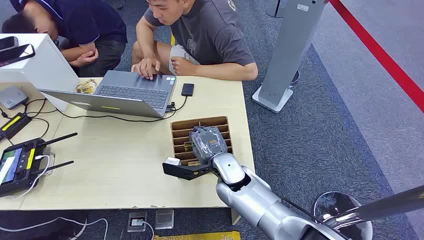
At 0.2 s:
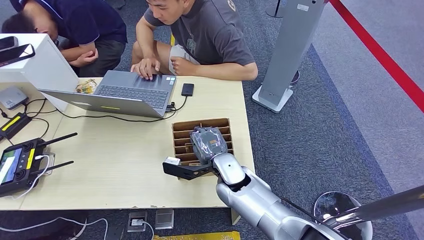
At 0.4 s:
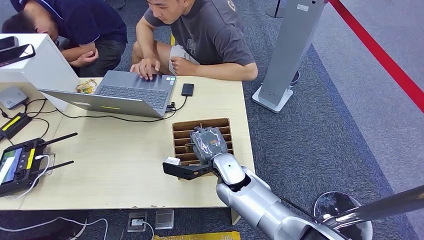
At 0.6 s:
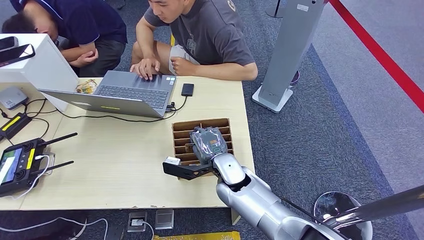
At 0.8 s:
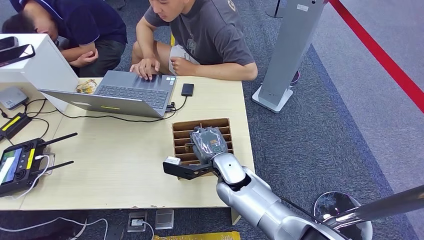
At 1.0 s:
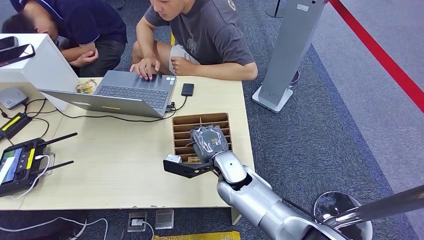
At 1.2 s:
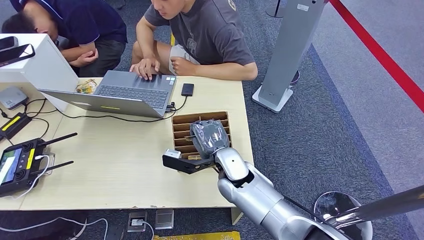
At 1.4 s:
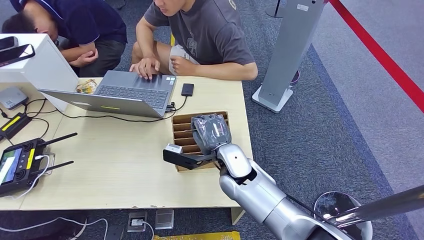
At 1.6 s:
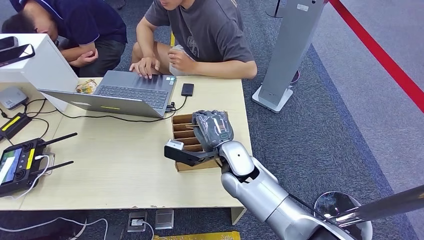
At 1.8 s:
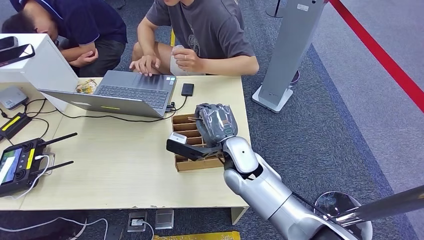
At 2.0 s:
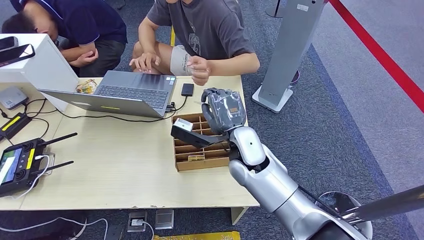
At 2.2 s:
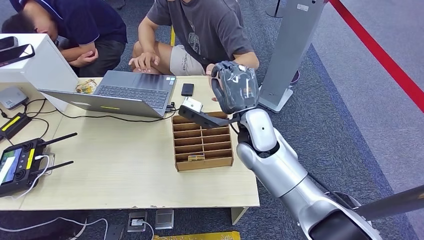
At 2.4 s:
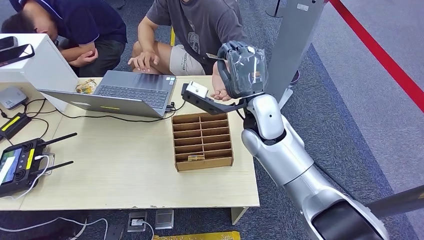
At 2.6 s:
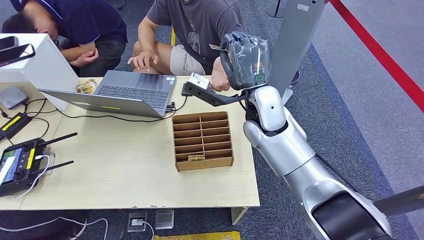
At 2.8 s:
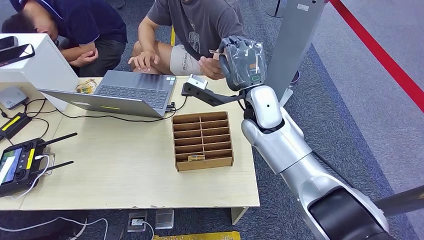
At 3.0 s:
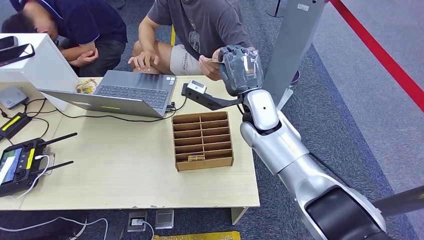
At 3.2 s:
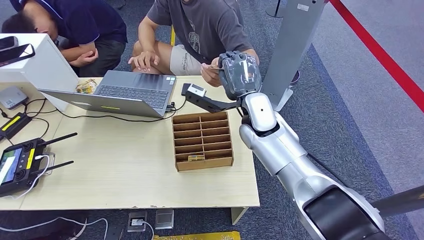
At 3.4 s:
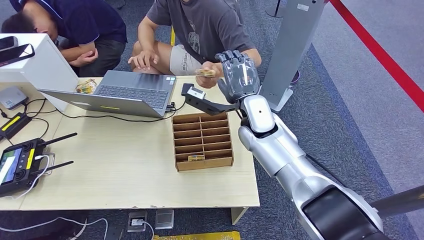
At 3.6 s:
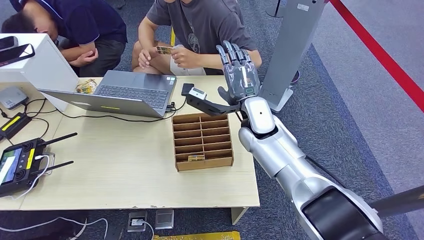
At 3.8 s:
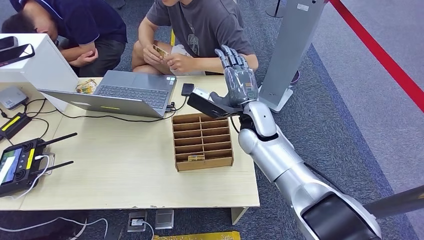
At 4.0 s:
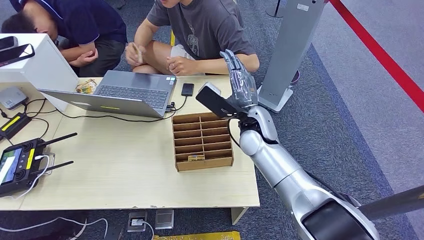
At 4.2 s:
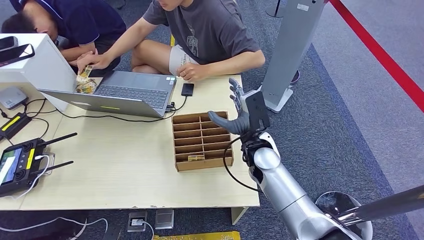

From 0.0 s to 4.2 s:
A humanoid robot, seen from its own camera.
Step, from 0.0 s to 1.6 s: Pick up the room card from the card holder.
Step, from 1.8 s to 4.2 s: Hand the room card to the target.
From 1.4 s to 2.8 s: The right hand moves upward, forward and to the right, some 15 cm.
From 2.8 s to 4.2 s: The right hand goes approximately 10 cm downward.

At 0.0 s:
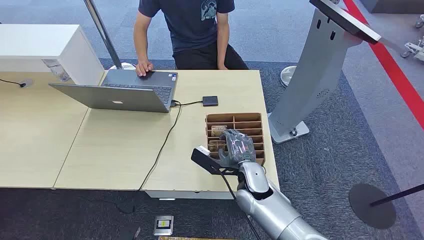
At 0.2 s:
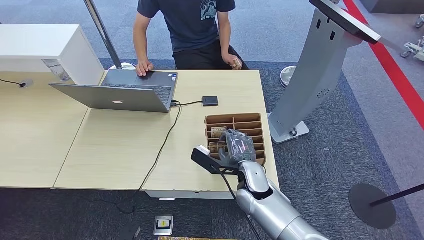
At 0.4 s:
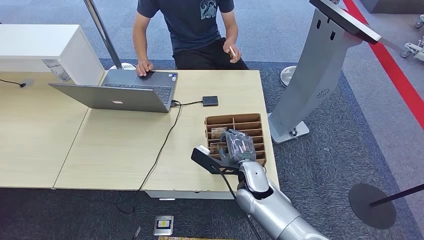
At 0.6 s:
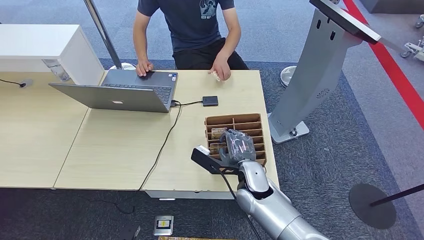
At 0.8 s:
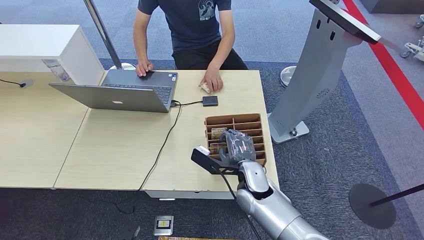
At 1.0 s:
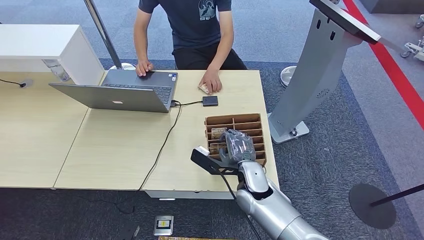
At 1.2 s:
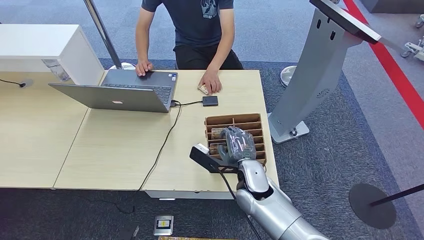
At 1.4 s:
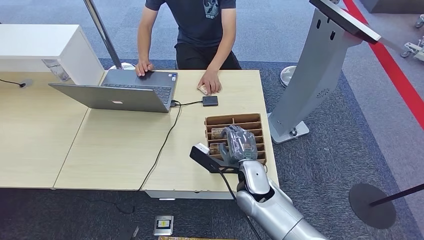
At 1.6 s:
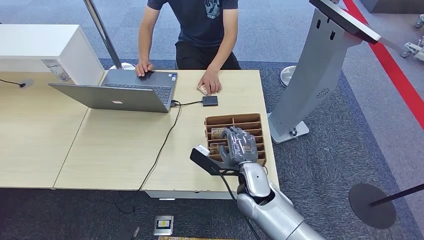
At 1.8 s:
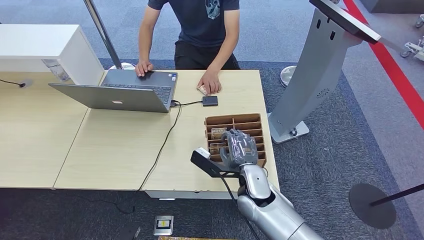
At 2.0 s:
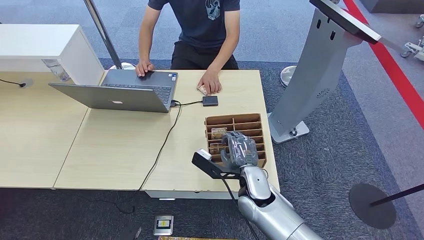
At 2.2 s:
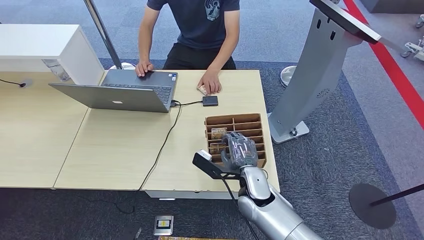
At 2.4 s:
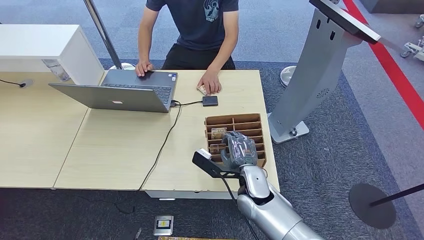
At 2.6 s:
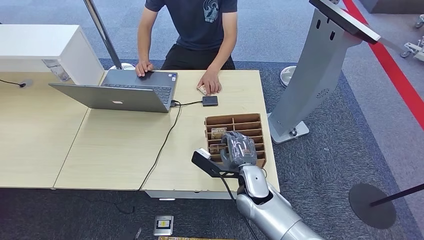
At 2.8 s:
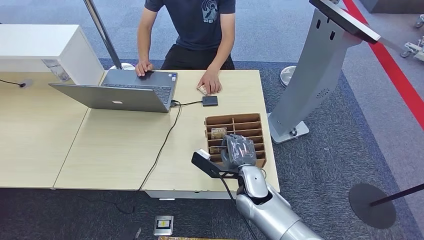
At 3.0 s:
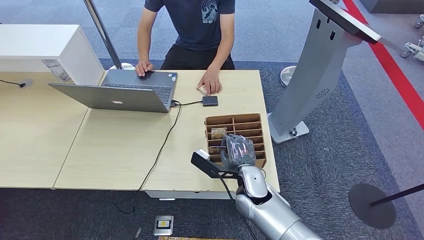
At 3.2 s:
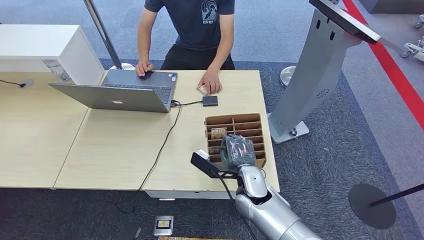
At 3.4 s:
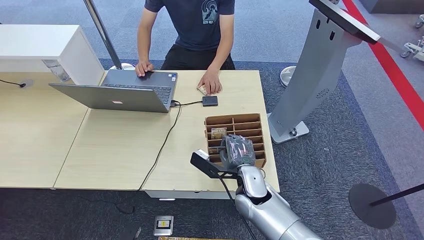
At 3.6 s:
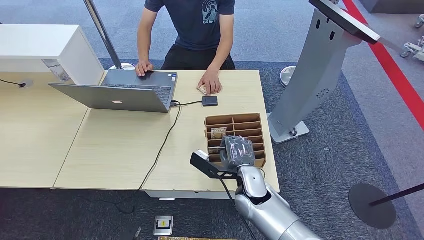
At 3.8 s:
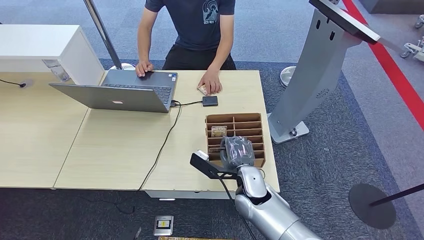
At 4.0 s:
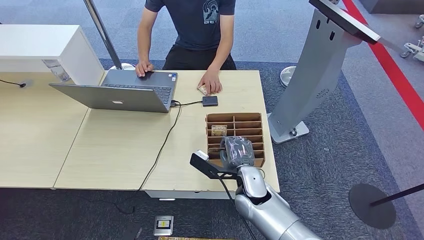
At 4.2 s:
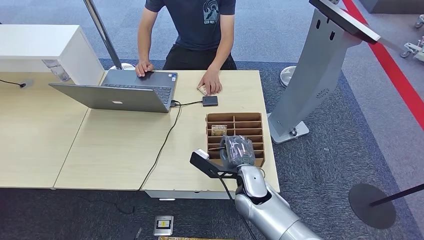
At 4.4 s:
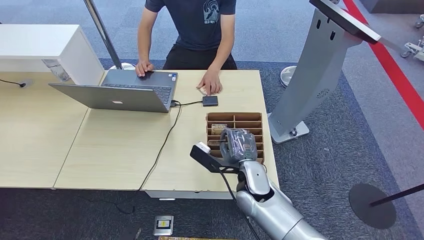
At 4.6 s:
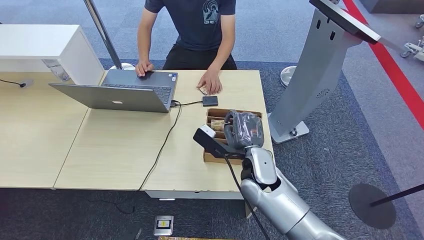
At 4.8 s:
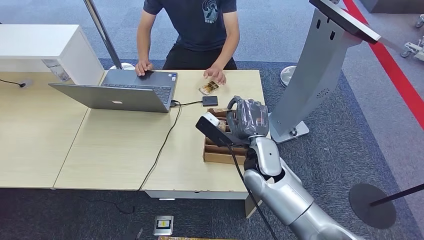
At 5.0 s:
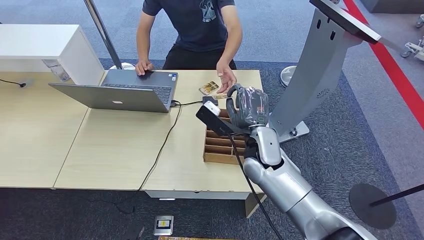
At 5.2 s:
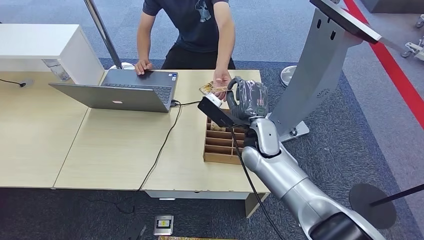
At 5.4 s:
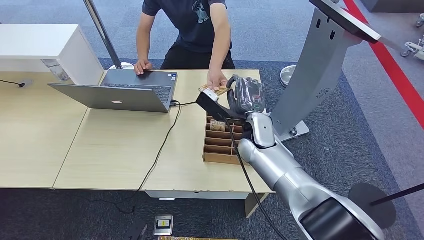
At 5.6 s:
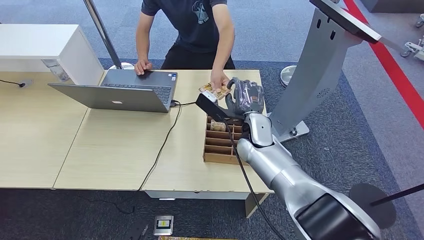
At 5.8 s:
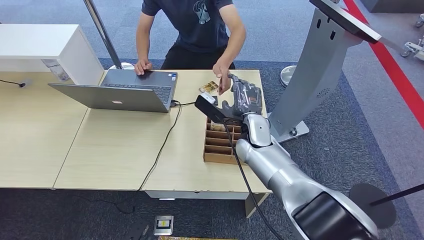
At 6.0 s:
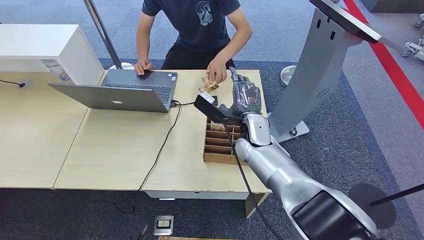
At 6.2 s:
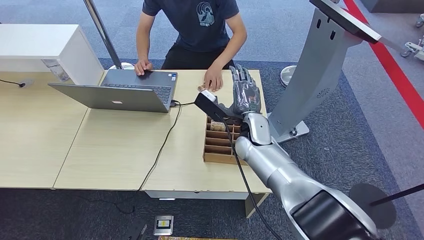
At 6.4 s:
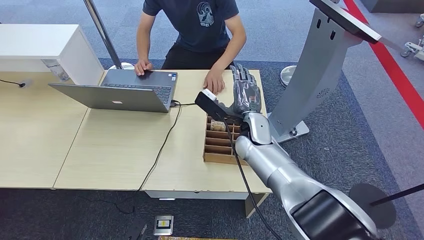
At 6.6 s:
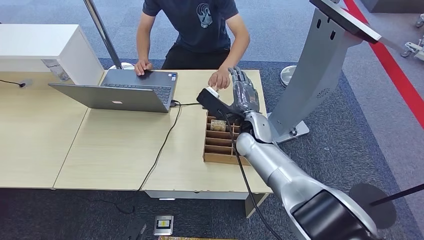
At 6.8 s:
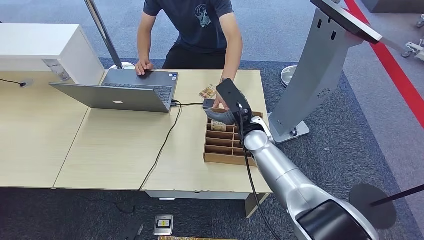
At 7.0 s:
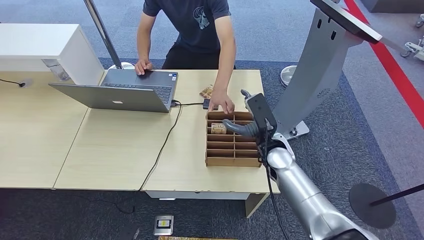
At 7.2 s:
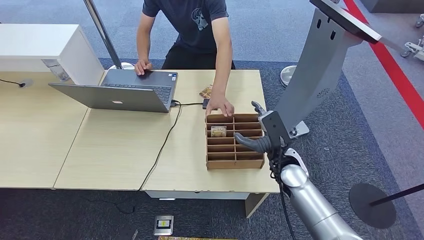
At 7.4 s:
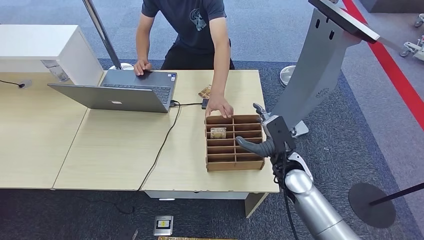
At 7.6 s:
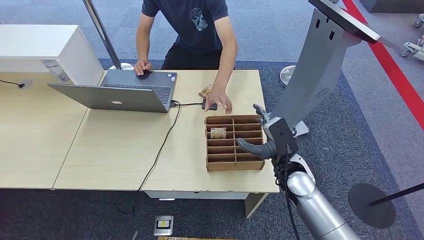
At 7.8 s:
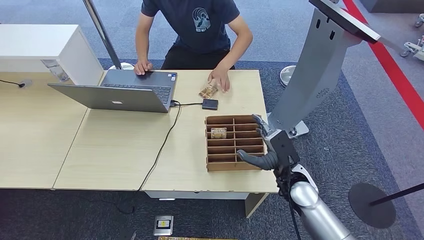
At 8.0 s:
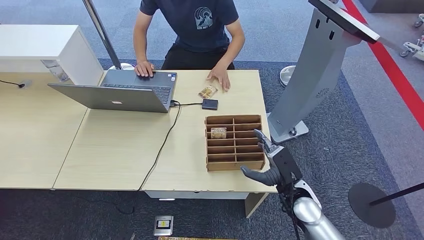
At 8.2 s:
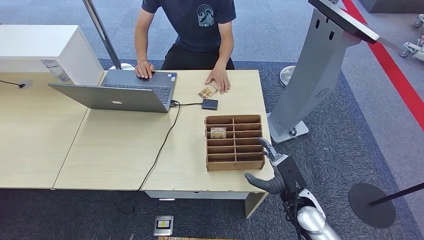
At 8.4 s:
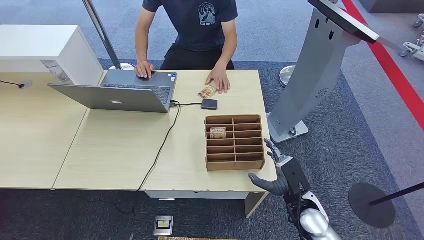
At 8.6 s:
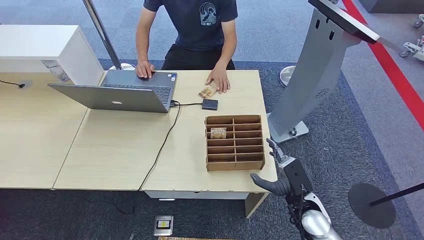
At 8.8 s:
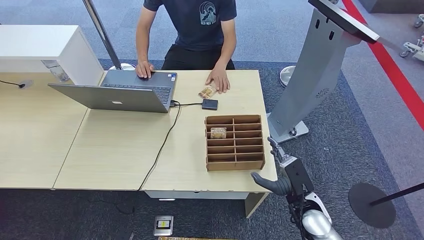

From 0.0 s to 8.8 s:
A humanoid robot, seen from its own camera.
Step, from 0.0 s to 4.8 s: Pick up the room card from the card holder.
Step, from 5.0 s to 8.8 s: Hand the room card to the target.
From 1.4 s to 4.4 s: The hands make only small movements.
From 4.4 s to 5.8 s: The right hand shifts roughly 15 cm forward and upward.
From 5.8 s to 7.4 s: The right hand shifts about 15 cm to the right, backward and downward.
From 7.4 s to 8.8 s: The right hand is displaced backward and downward by roughly 10 cm.
